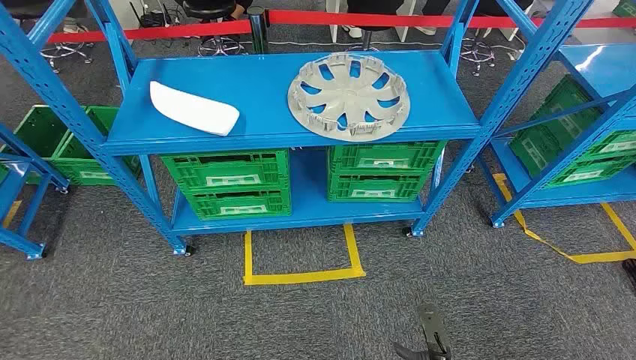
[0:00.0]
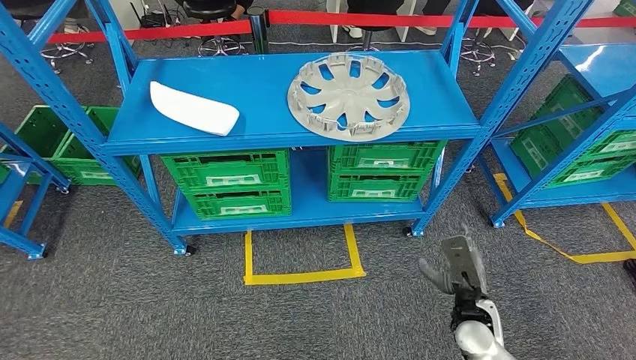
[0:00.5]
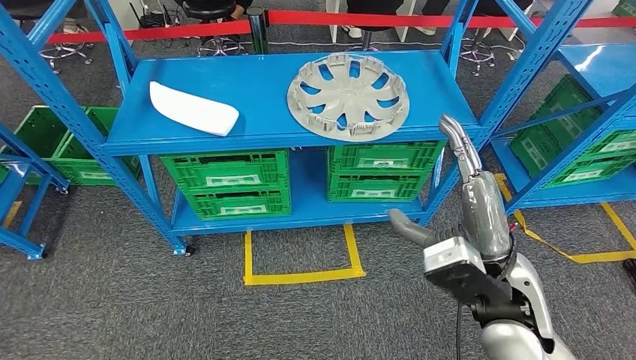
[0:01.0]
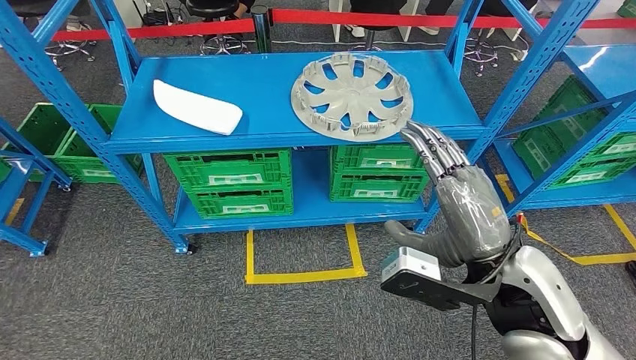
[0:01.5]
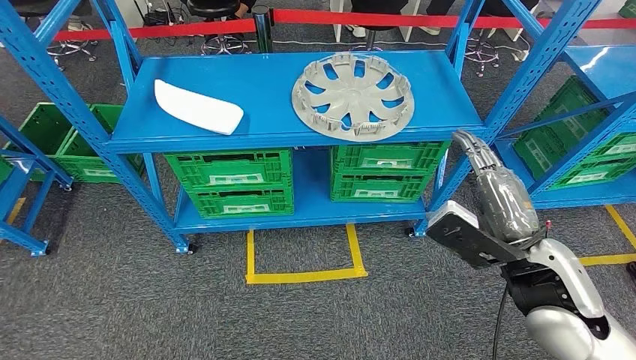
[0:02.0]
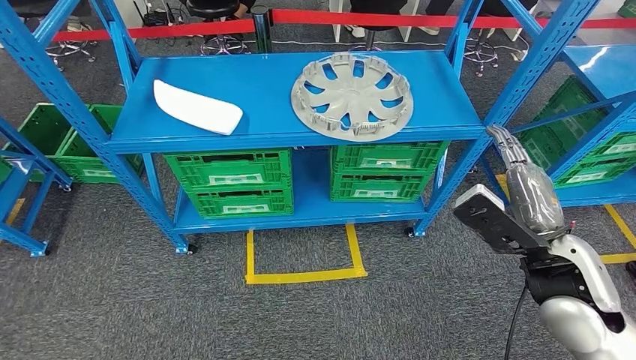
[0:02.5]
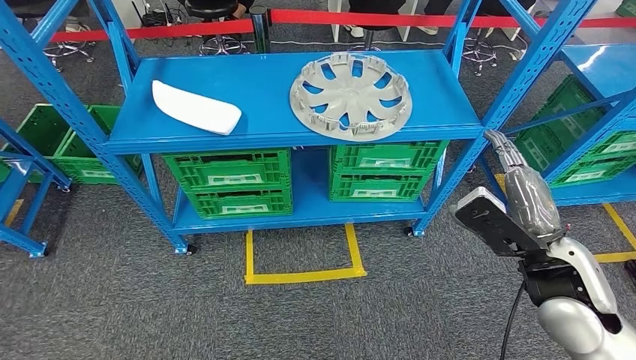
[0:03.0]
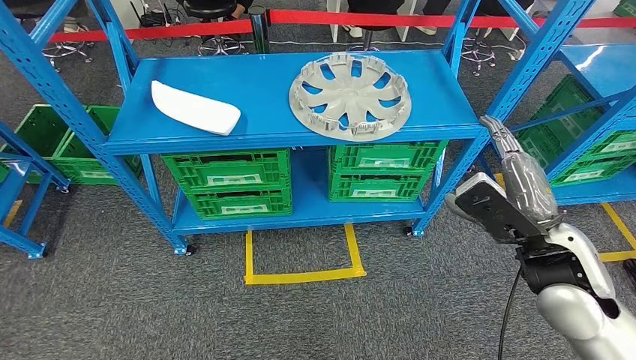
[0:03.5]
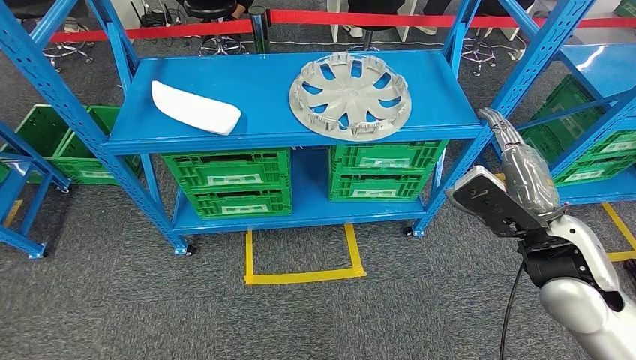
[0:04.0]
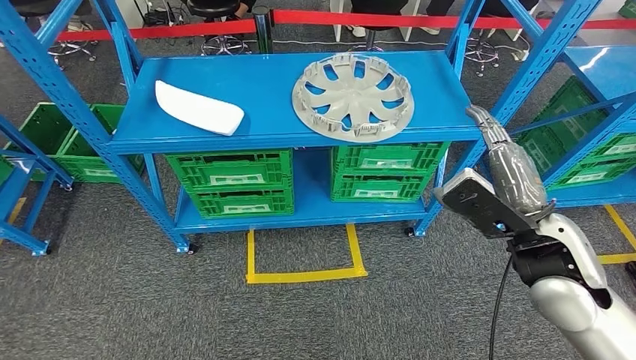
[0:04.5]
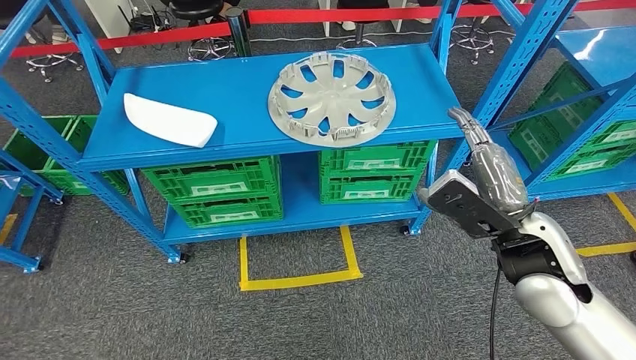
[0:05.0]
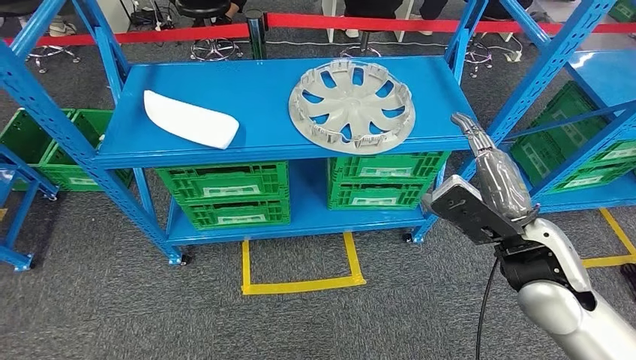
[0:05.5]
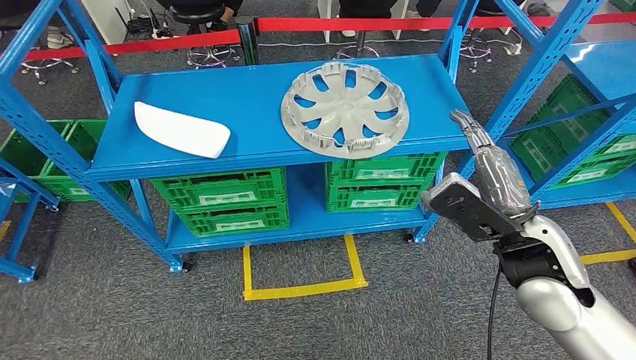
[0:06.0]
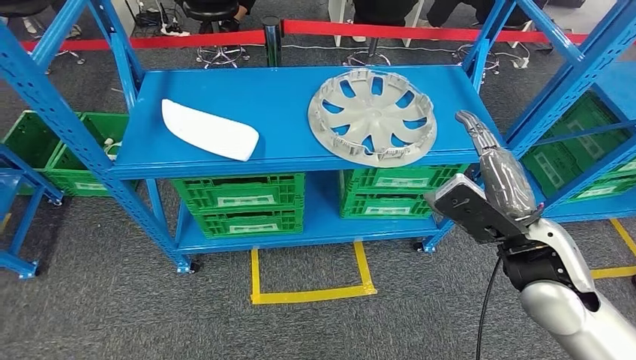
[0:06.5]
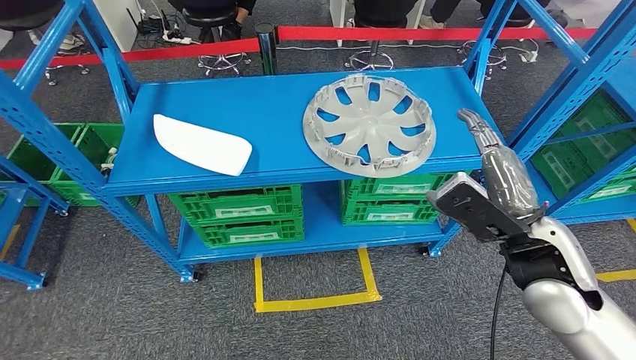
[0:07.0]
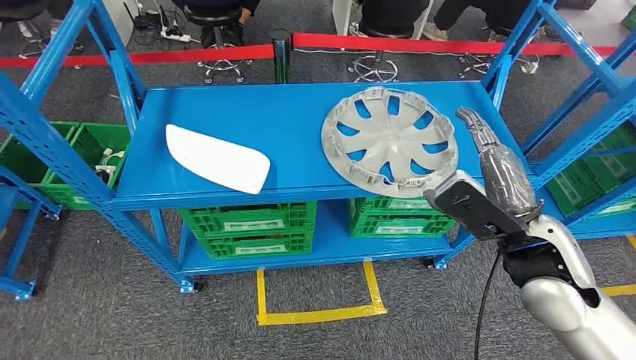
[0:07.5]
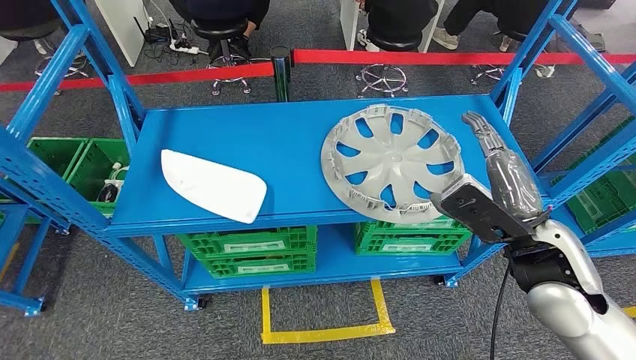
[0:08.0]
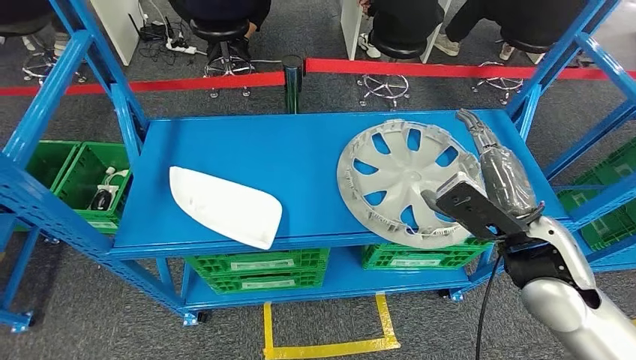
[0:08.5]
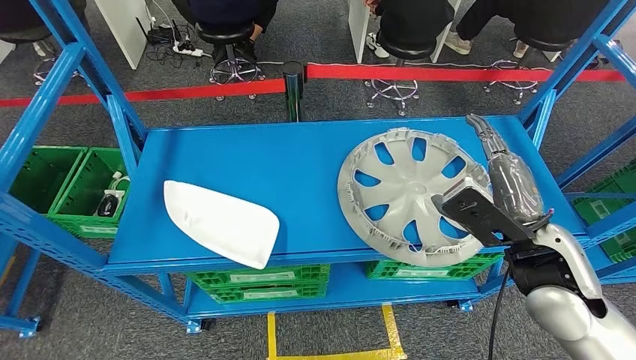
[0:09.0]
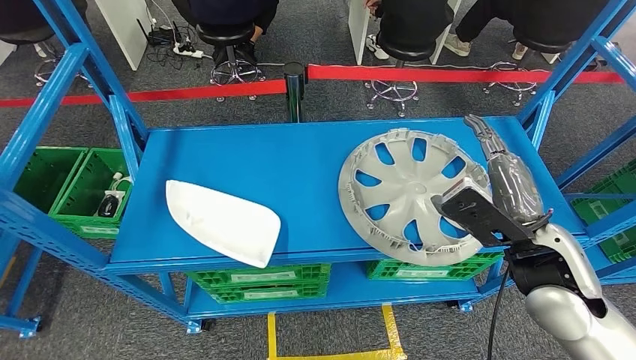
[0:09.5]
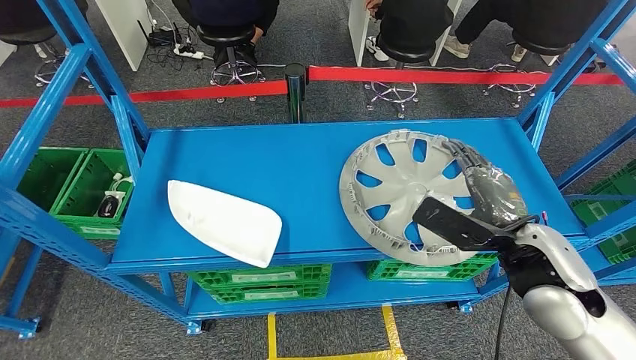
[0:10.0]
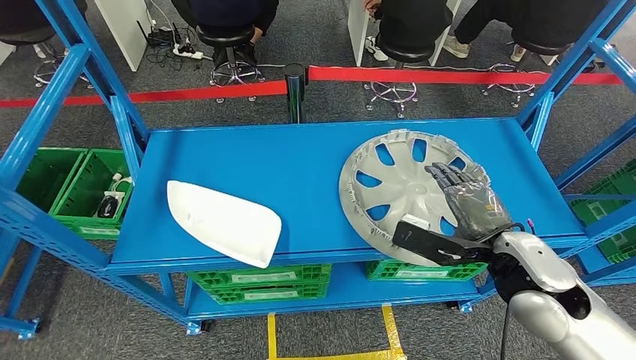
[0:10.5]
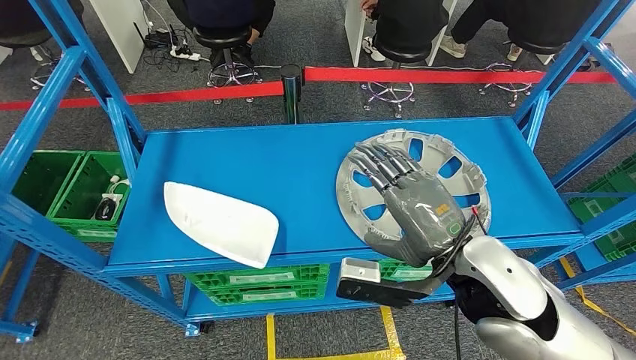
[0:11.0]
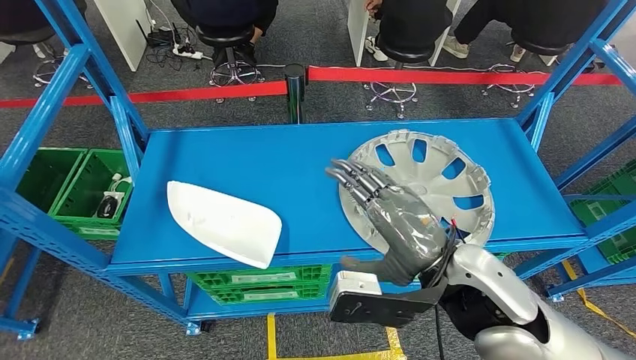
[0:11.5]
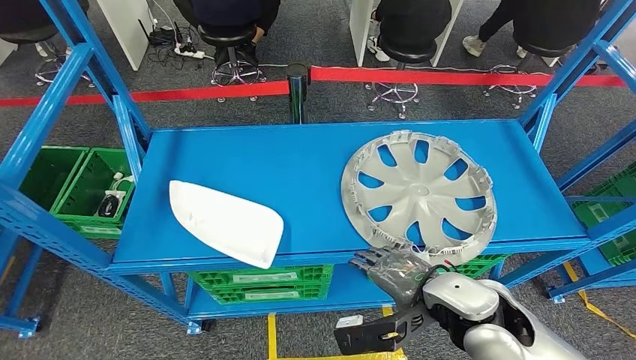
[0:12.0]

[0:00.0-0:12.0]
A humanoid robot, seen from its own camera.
0:02.0 to 0:04.0: The hands stay close to where they were, moving slightly.
0:10.0 to 0:12.0: The right hand goes approximately 10 cm to the left.

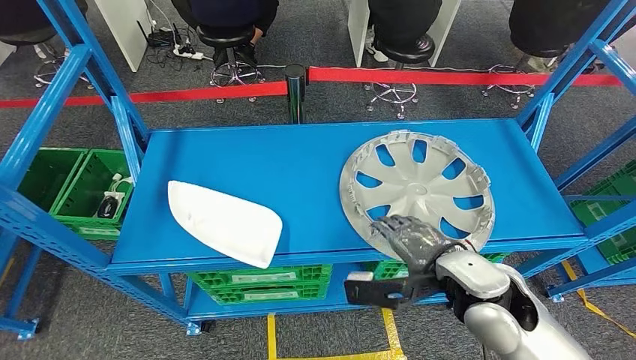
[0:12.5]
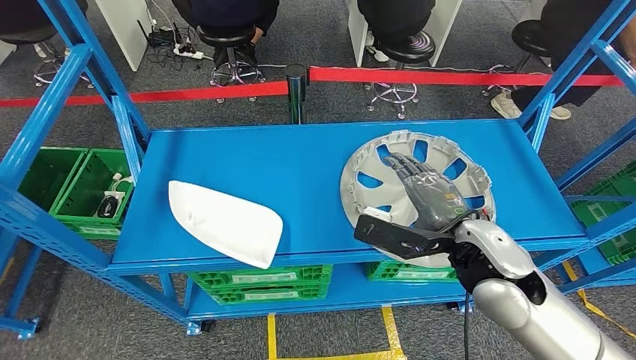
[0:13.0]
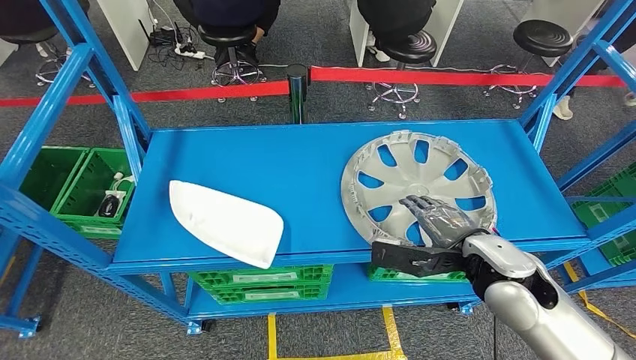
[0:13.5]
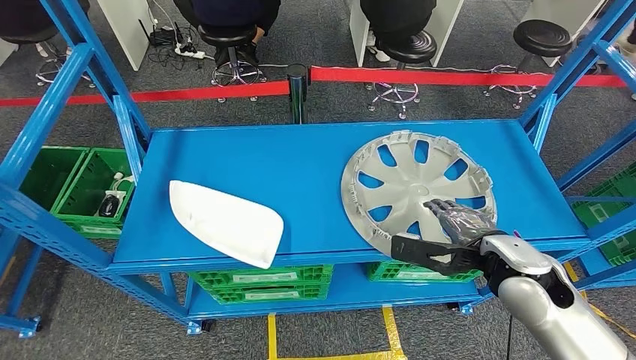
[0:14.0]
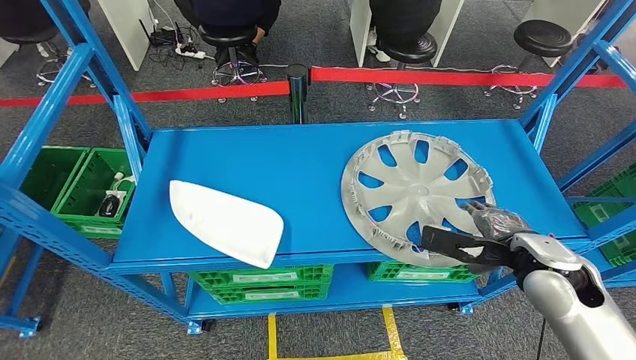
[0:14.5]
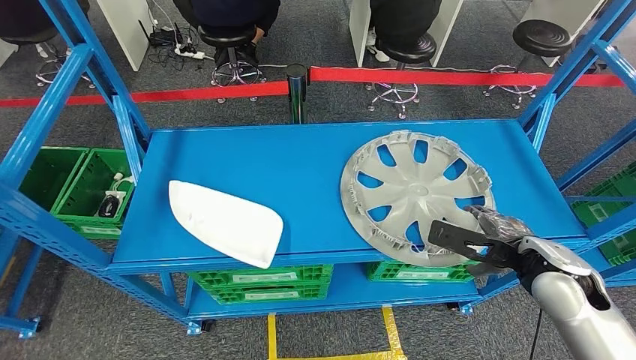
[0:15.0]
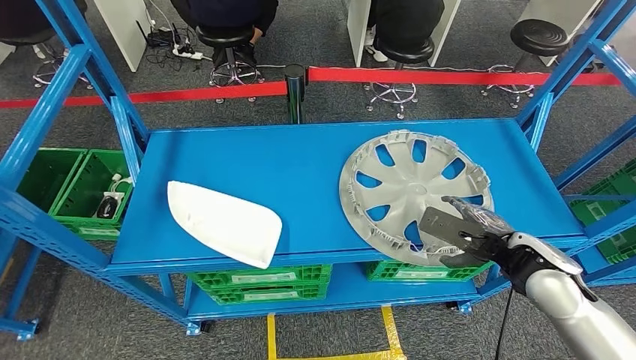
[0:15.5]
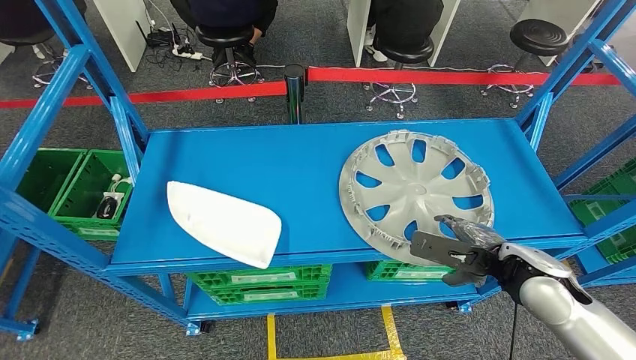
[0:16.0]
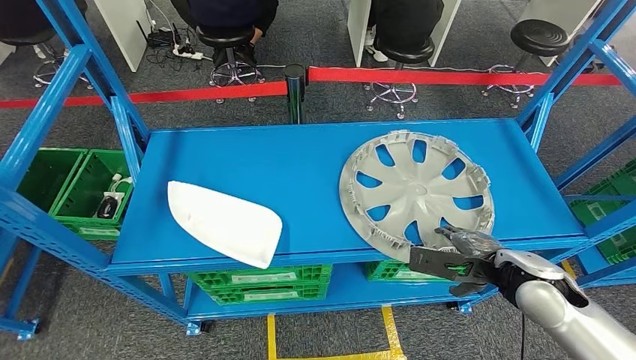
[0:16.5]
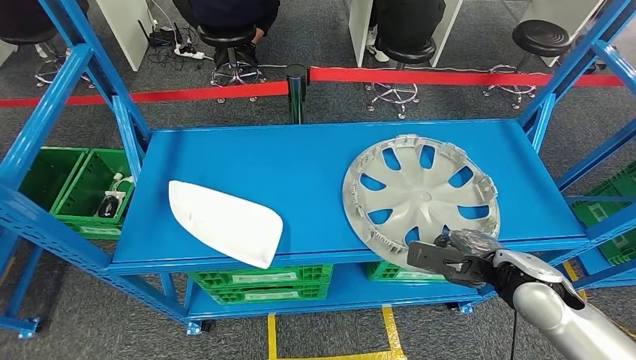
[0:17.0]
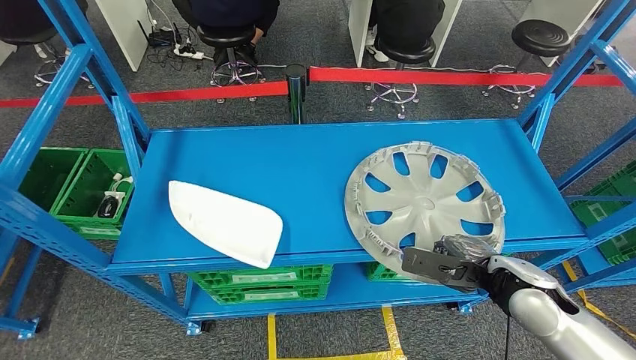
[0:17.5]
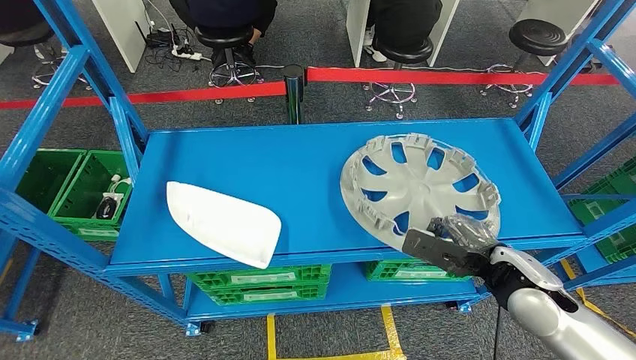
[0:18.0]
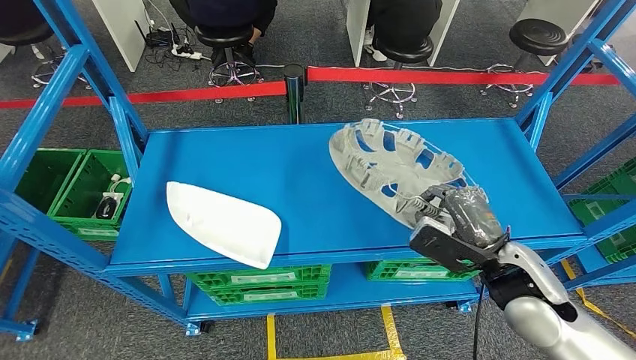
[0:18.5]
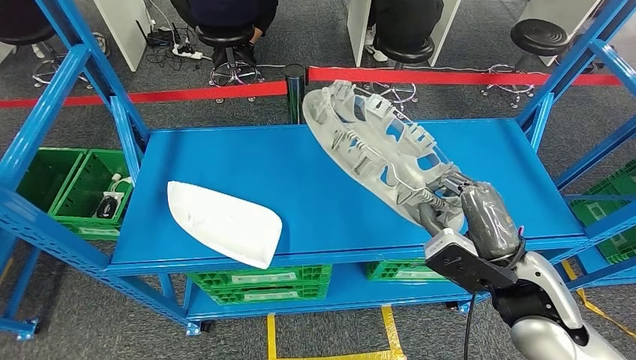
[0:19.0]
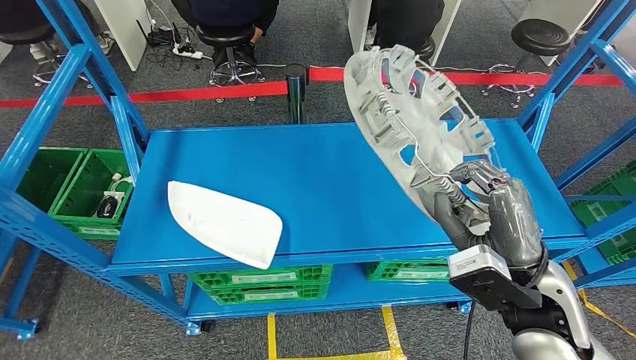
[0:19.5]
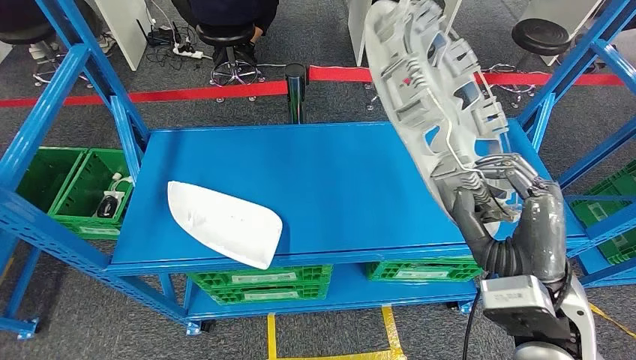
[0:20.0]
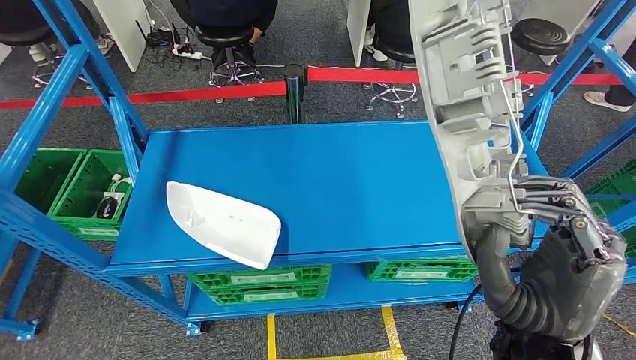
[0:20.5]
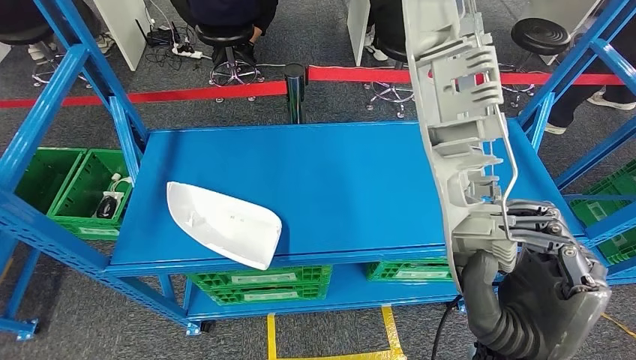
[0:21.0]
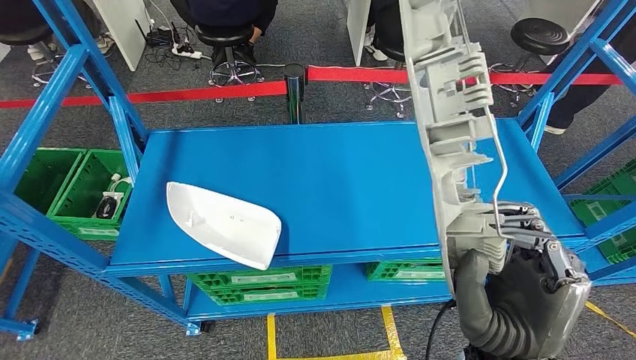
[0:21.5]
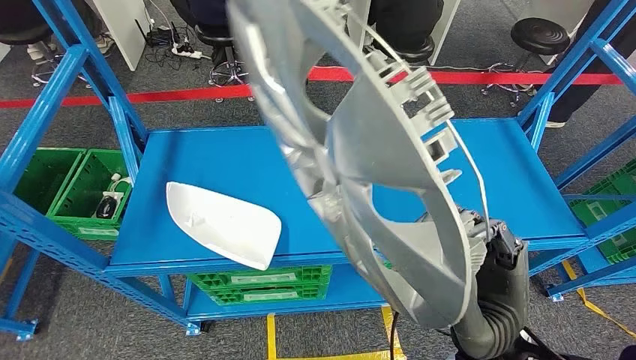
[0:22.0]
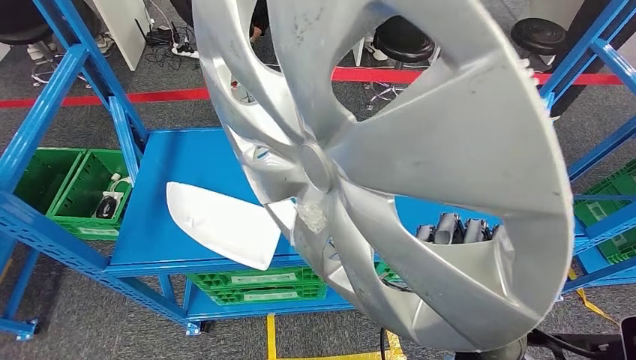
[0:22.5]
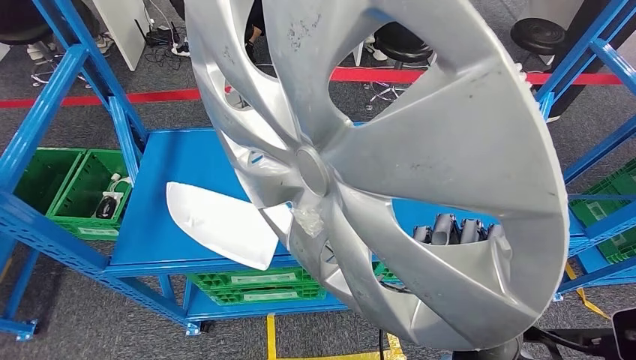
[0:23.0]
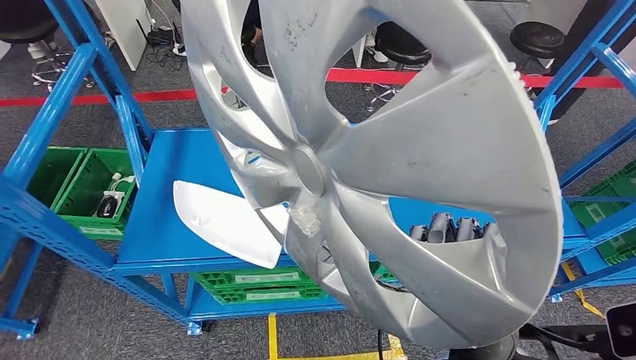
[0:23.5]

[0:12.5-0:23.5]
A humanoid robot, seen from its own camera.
Step, 0:12.5 to 0:20.5: Take small components from the rack.
0:12.5 to 0:14.5: The right hand is displaced to the right by approximately 15 cm.
0:16.0 to 0:18.0: The hands make only small movements.
0:20.0 to 0:21.5: The right hand goes about 10 cm to the left and backward.
